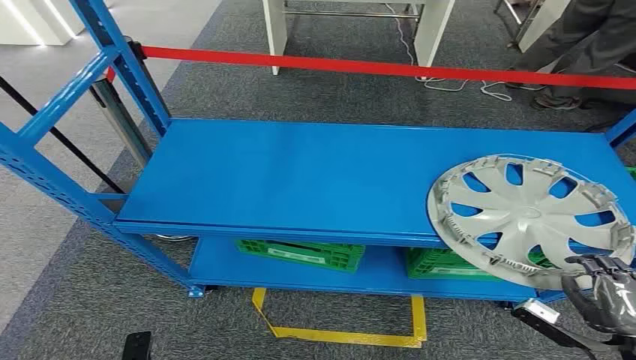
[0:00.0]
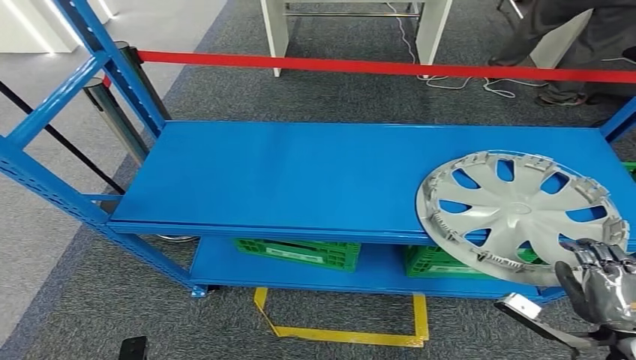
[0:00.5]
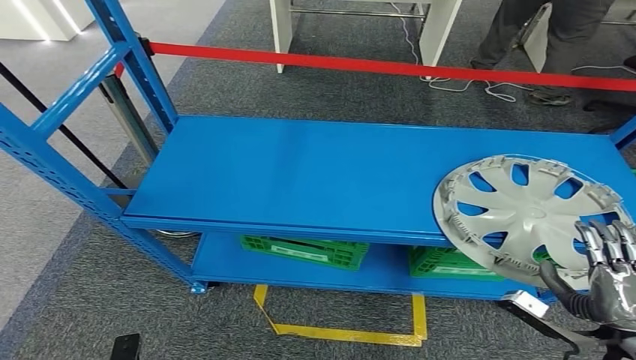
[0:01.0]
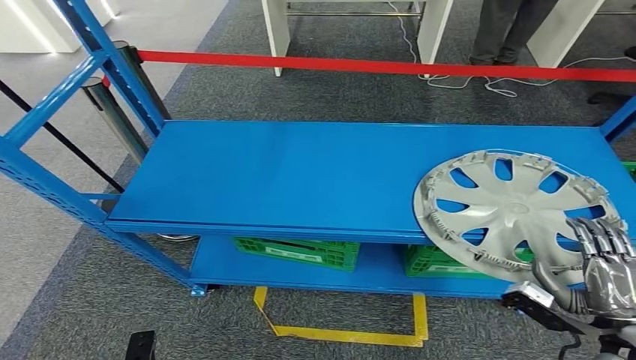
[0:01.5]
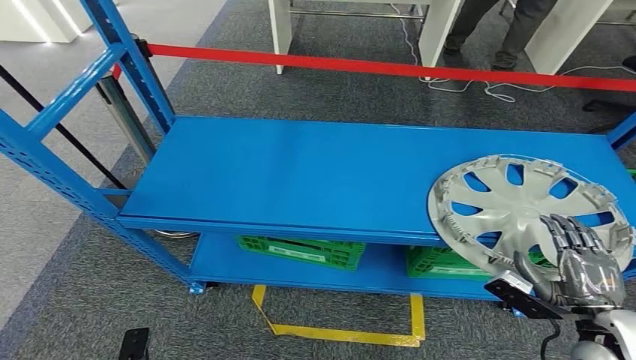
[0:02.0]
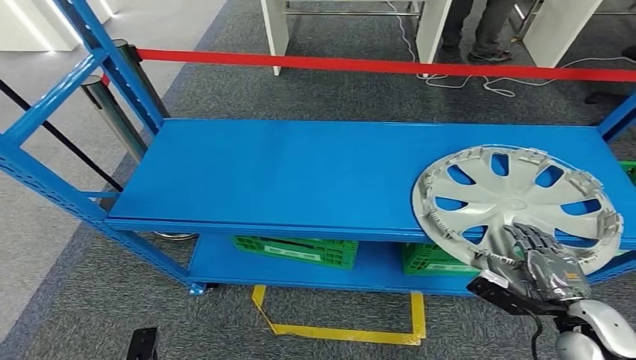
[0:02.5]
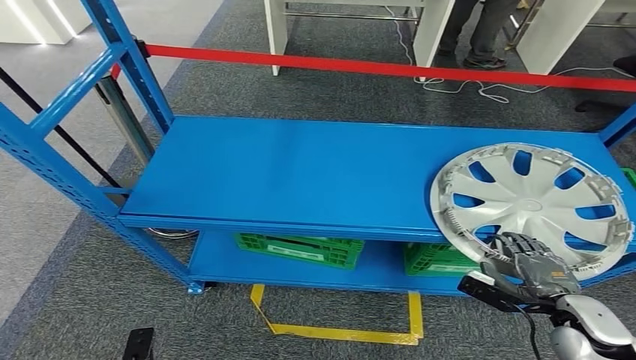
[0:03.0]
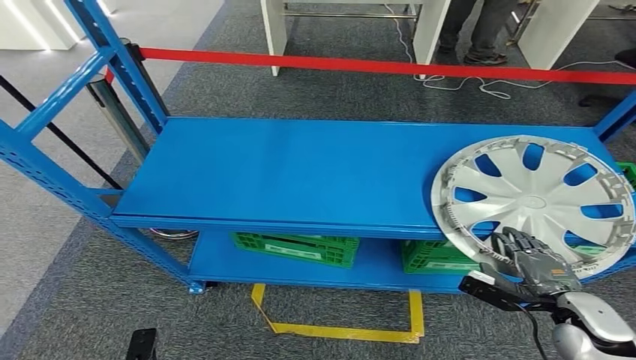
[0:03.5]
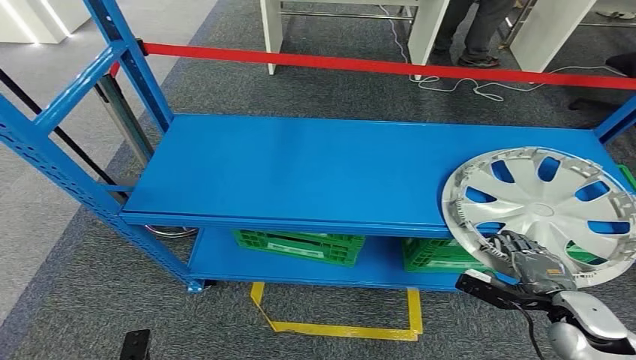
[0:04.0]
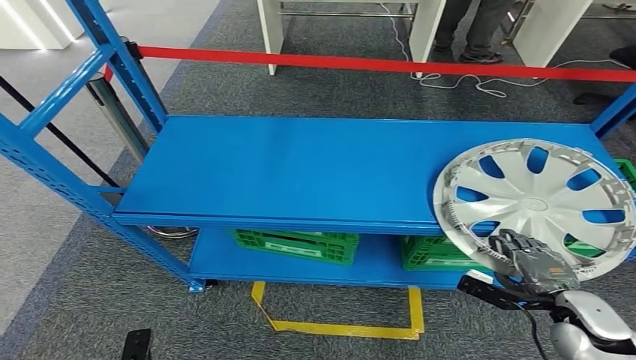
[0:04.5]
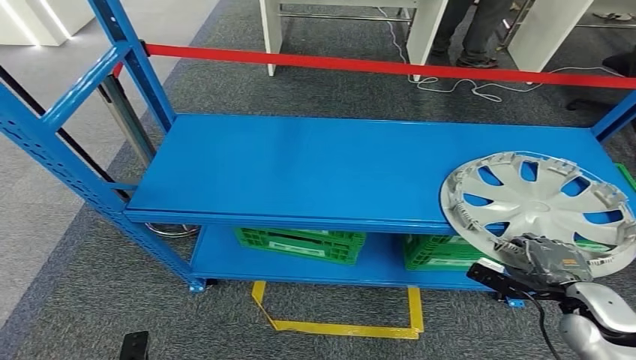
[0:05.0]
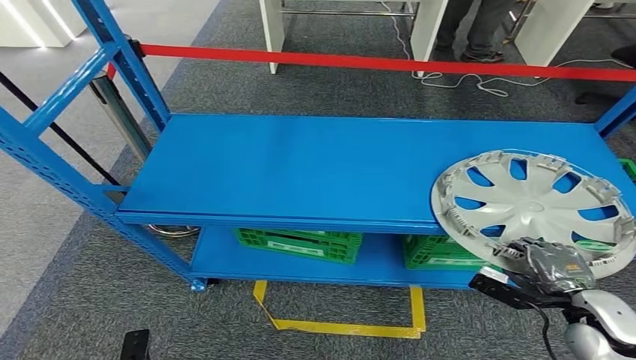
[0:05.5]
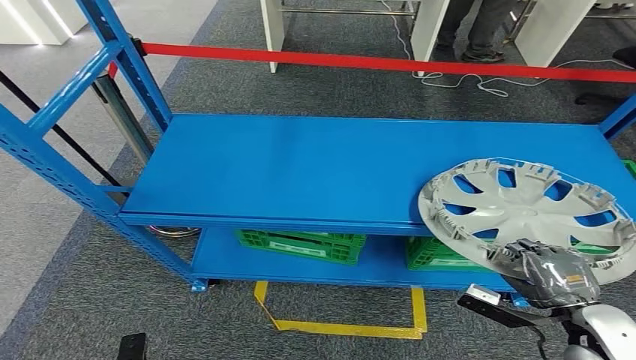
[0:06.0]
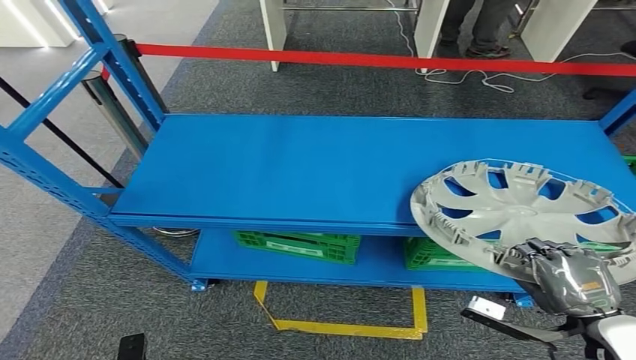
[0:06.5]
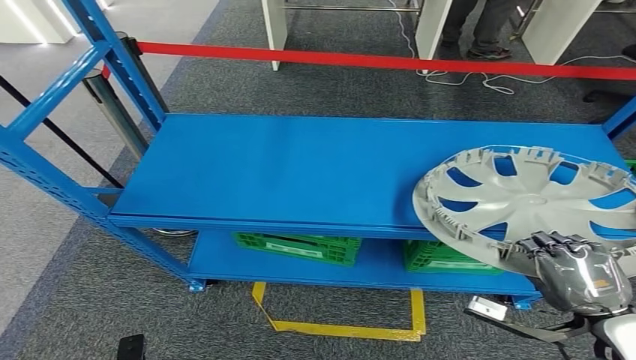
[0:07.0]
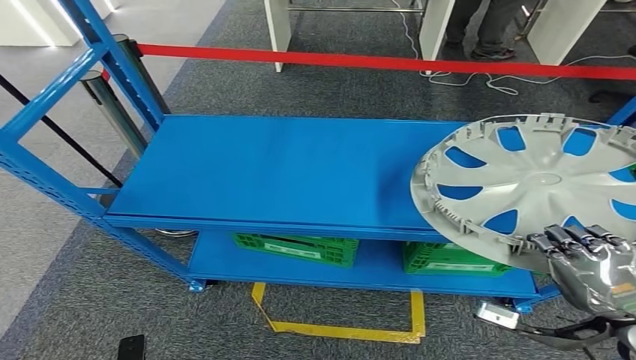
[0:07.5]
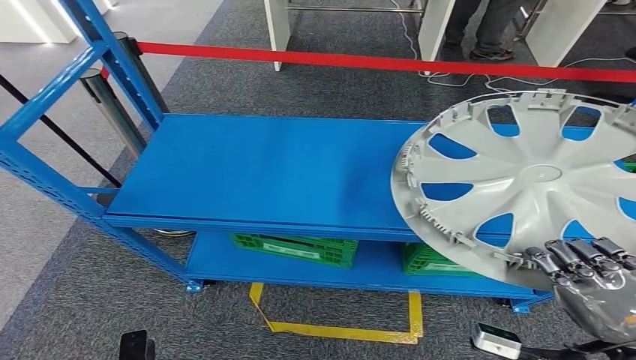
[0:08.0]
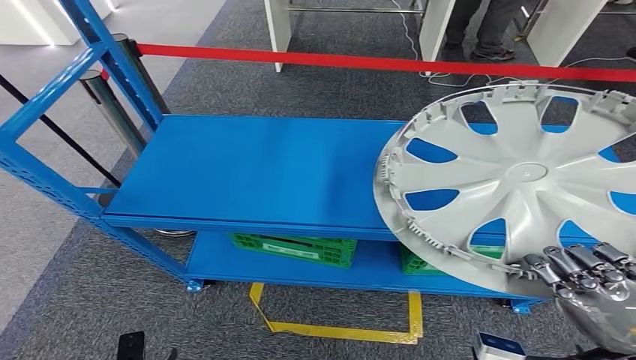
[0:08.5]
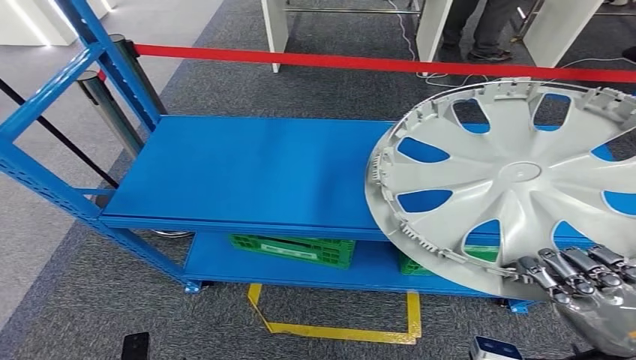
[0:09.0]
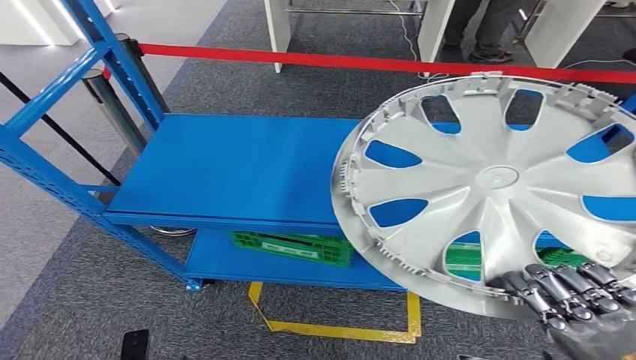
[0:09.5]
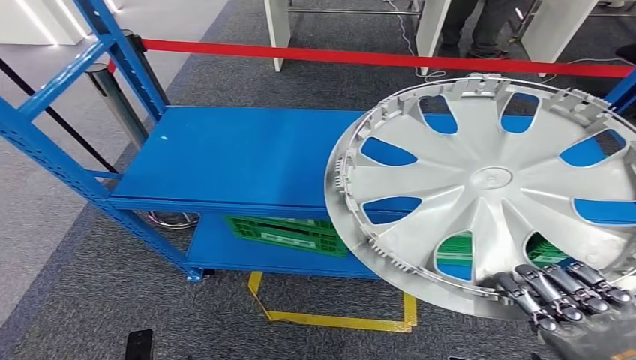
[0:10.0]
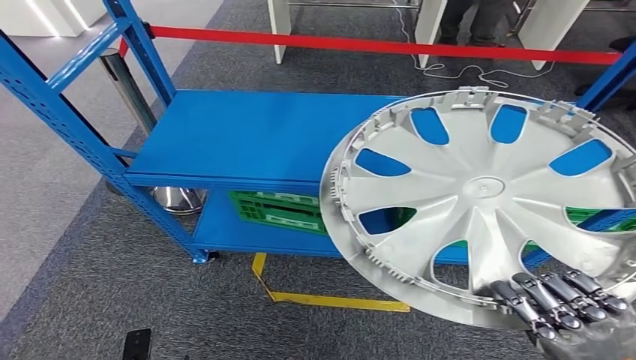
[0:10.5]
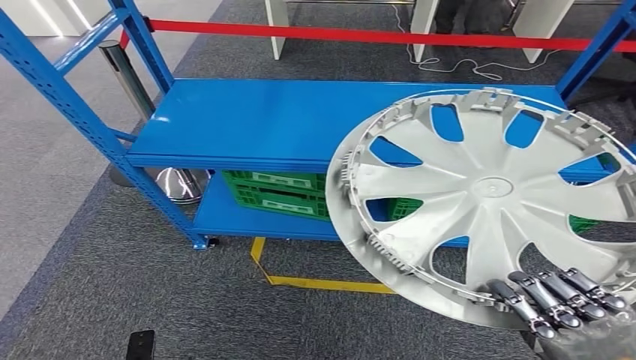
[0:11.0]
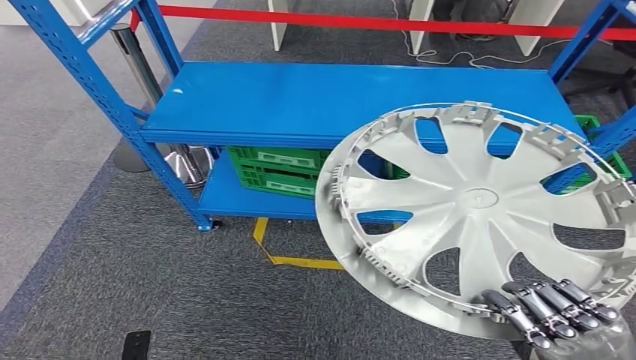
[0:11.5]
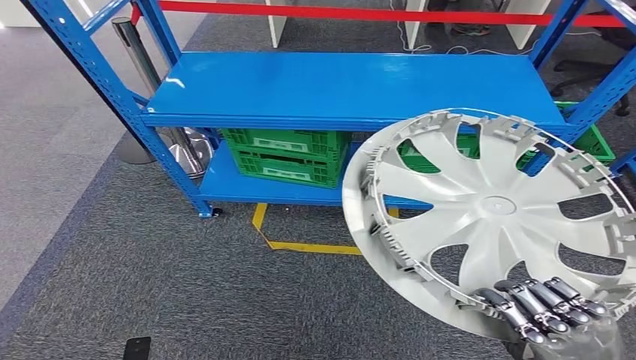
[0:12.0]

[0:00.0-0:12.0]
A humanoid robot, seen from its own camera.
Step, 0:00.0 to 0:07.5: Pick up the small component from the shelf.
0:04.0 to 0:06.0: The right hand shifts some 5 cm upward.

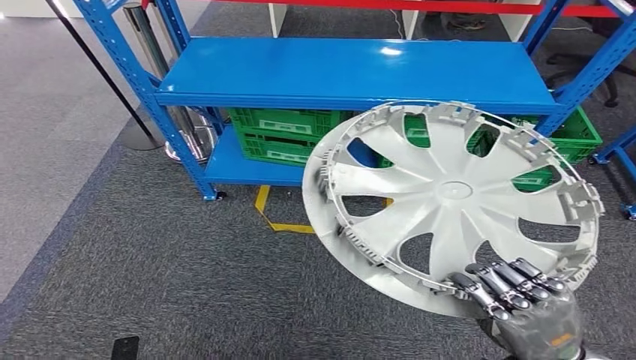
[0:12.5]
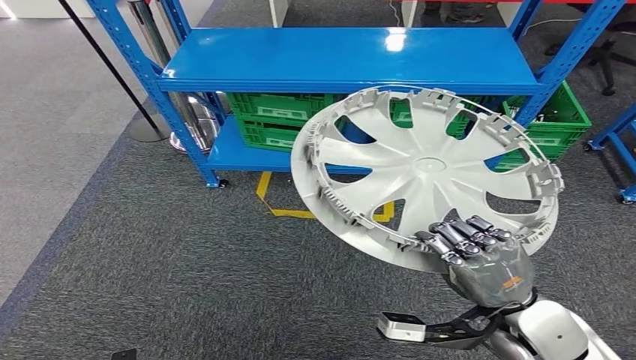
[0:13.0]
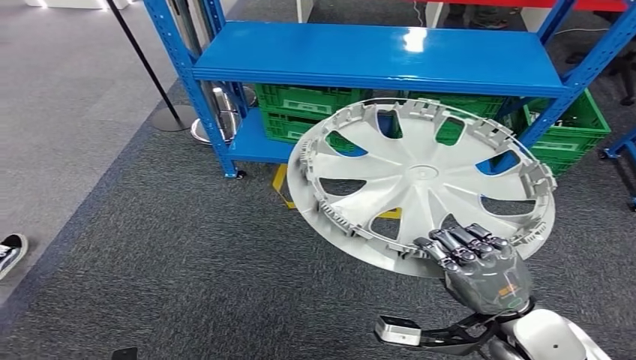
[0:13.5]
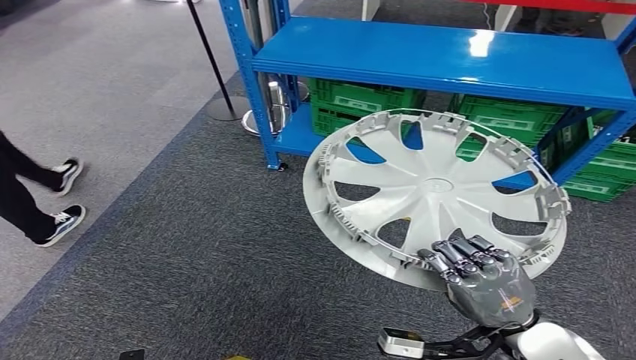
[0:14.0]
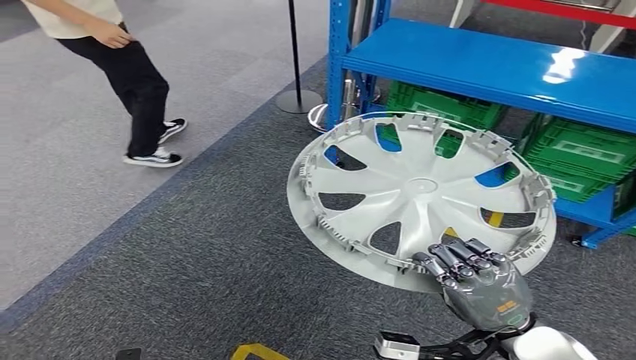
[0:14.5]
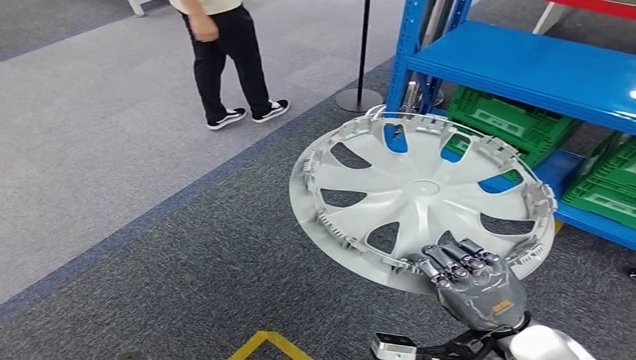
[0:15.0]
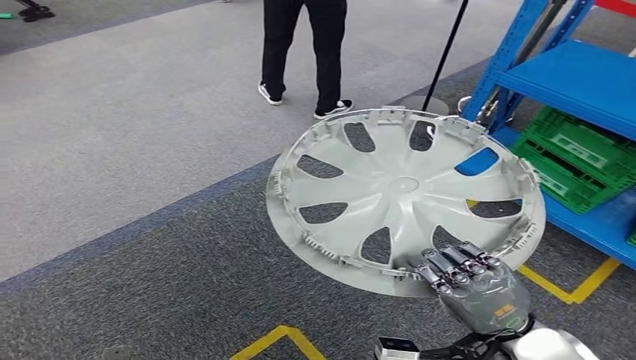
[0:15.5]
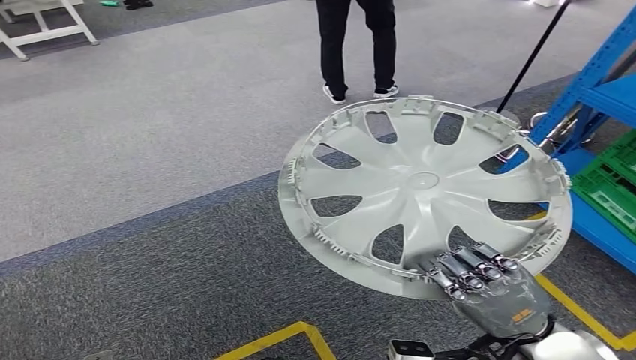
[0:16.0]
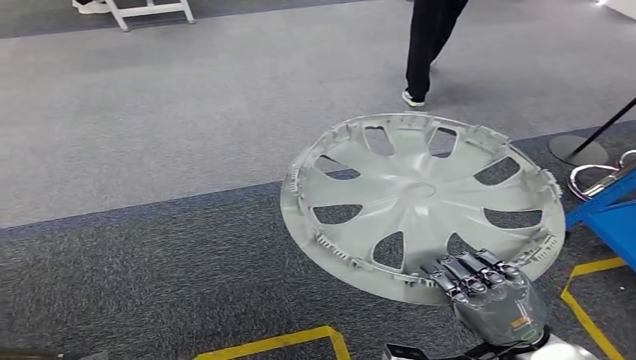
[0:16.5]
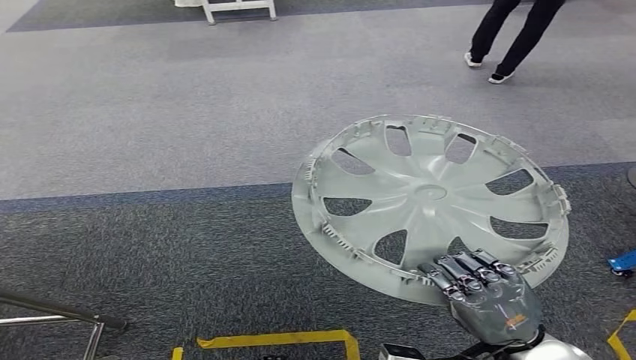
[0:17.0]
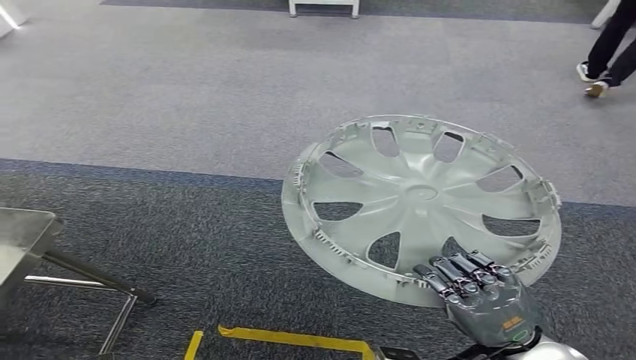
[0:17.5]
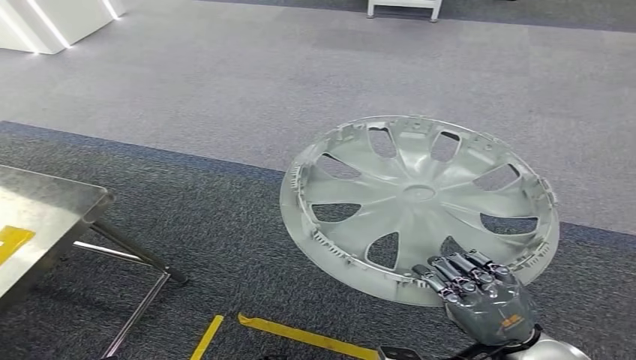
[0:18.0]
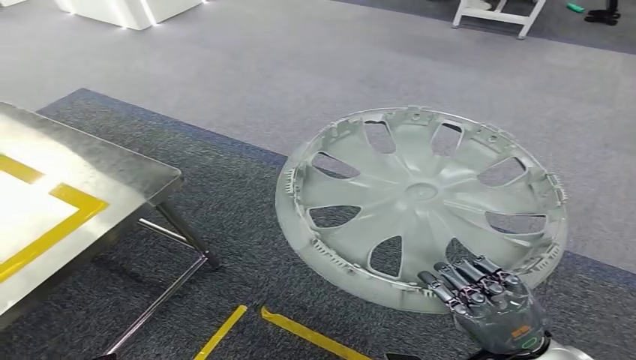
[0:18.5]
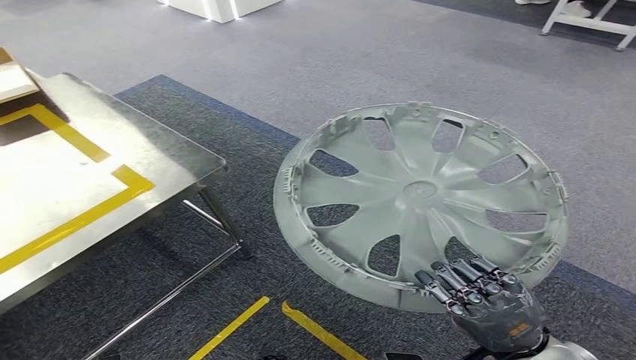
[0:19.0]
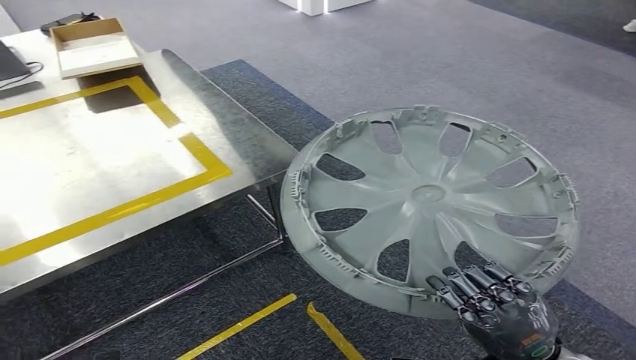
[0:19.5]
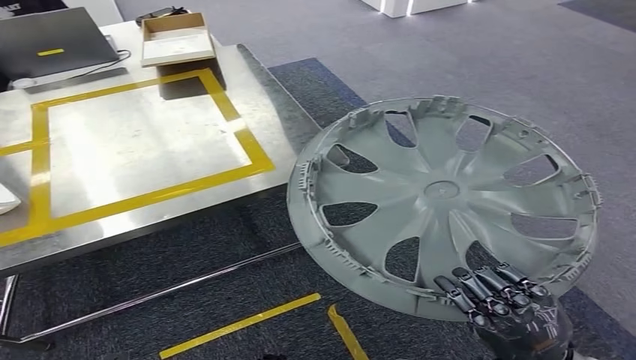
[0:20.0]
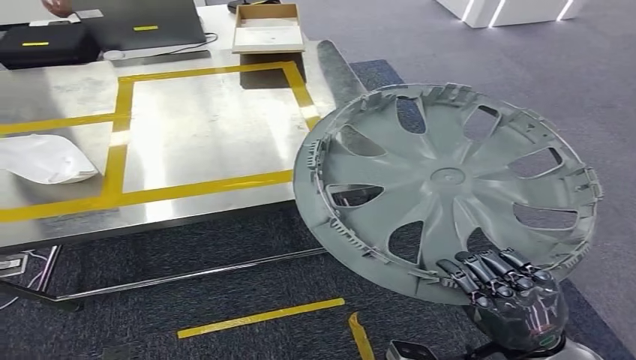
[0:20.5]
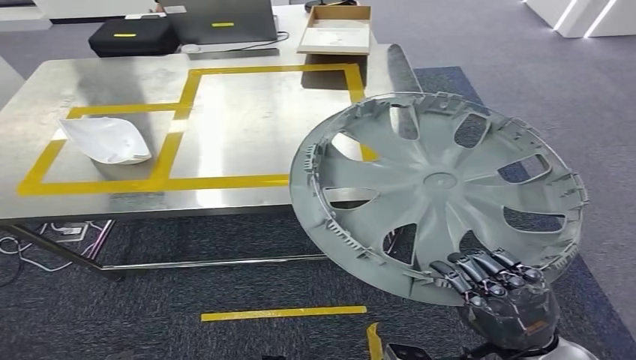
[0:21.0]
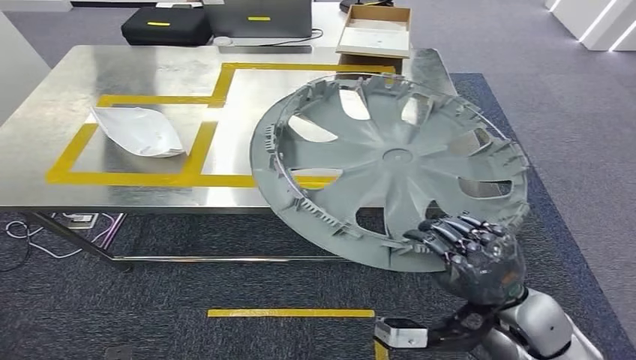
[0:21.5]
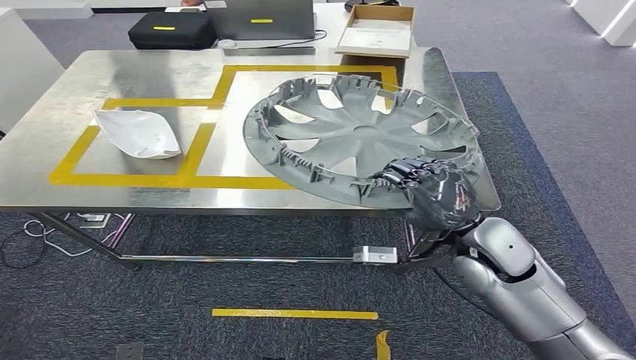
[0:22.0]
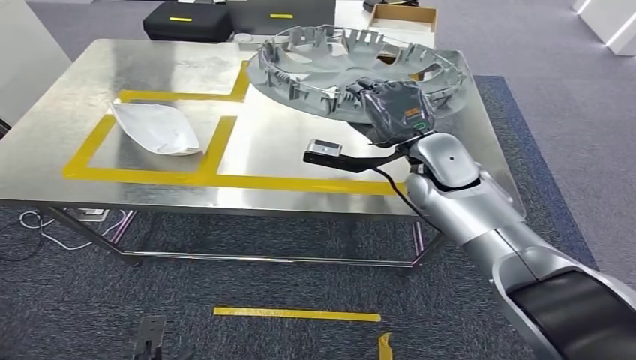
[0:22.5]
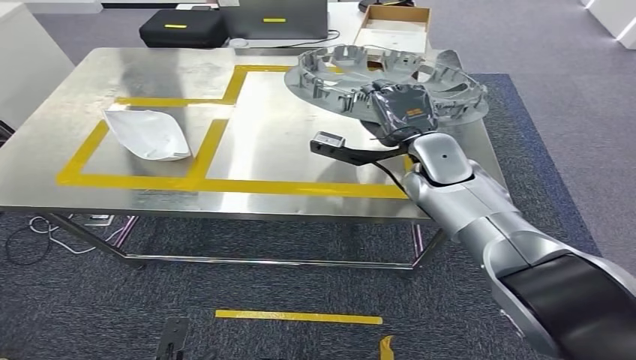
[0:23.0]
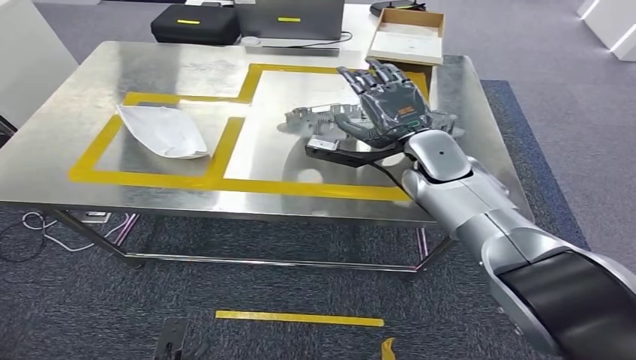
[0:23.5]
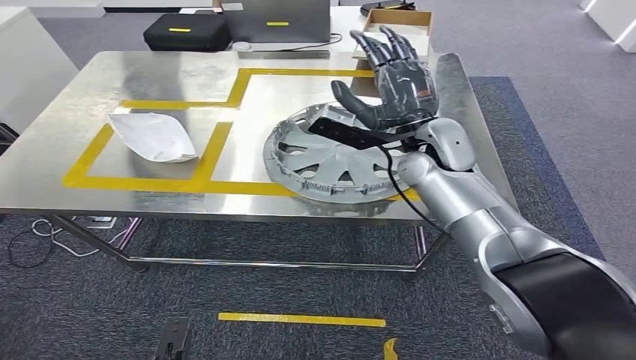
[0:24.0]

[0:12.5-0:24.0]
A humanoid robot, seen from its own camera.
Step, 0:12.5 to 0:21.5: Move the small component to the workbench.
